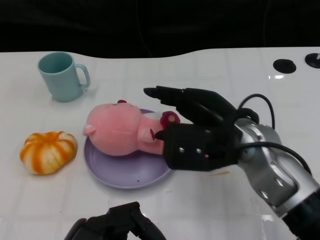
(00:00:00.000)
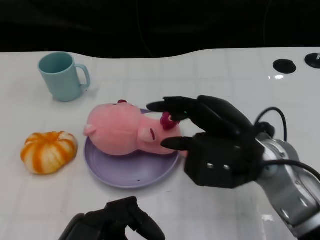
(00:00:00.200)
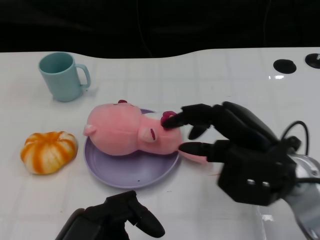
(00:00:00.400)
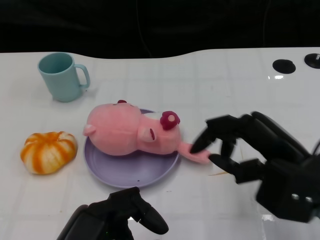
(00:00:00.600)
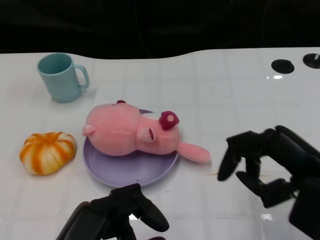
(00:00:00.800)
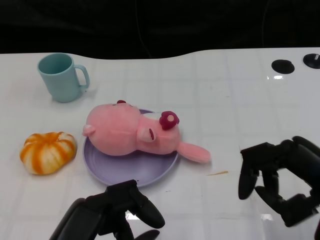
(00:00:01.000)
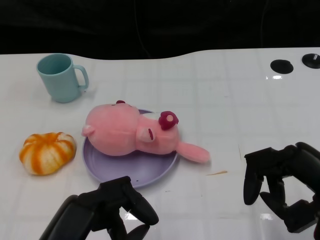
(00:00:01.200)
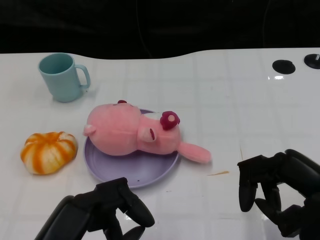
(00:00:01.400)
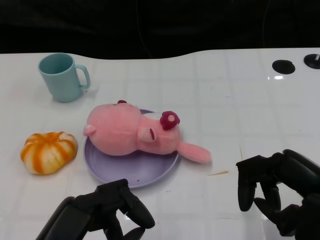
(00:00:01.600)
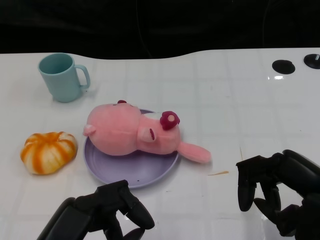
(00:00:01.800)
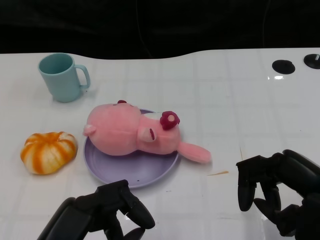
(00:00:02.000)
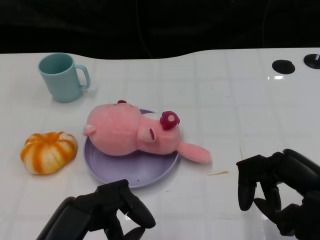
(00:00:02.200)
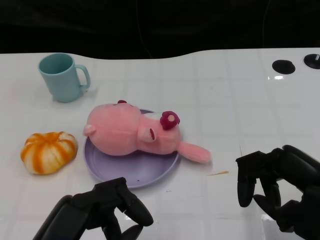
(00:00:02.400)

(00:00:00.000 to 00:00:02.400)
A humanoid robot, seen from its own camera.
Task of the whole recording: Pick up the doll on the other side of the plate and place it into the plate.
00:00:00.000 - 00:00:01.200: The right hand goes roughly 20 cm to the right and backward.
00:00:01.200 - 00:00:02.400: There are only small adjustments of the hands.

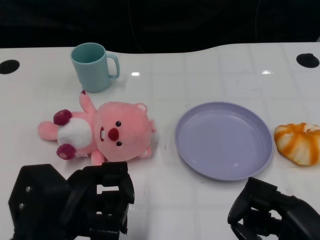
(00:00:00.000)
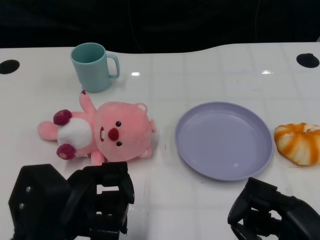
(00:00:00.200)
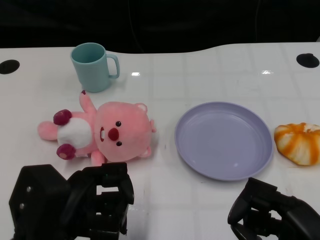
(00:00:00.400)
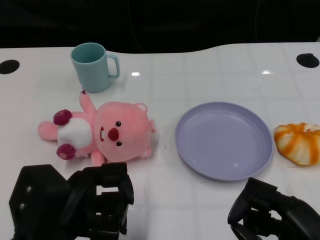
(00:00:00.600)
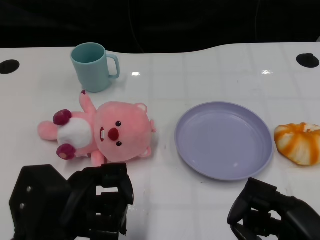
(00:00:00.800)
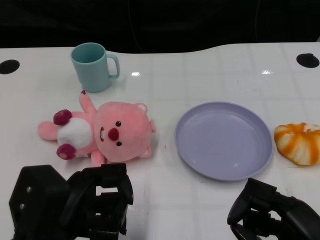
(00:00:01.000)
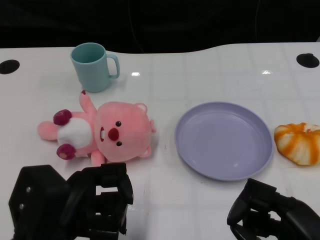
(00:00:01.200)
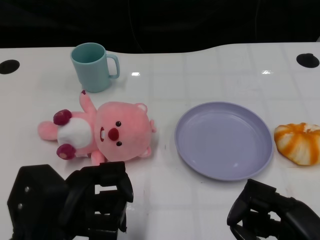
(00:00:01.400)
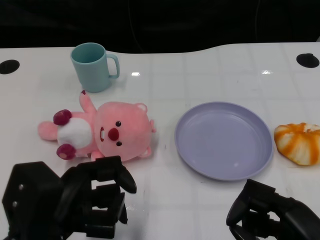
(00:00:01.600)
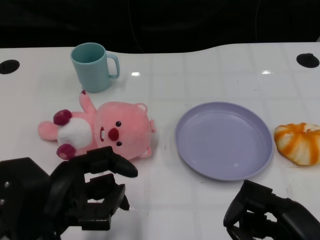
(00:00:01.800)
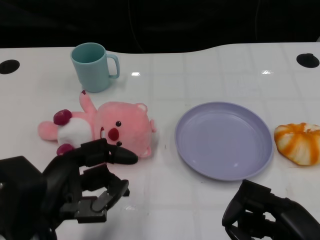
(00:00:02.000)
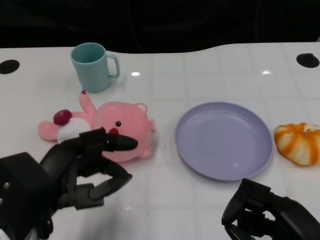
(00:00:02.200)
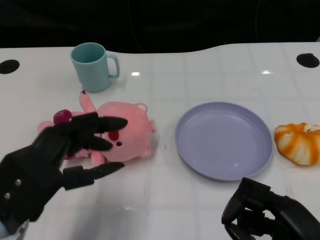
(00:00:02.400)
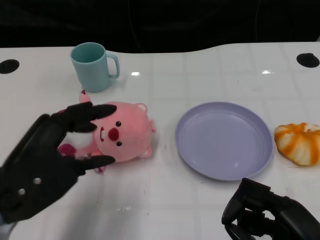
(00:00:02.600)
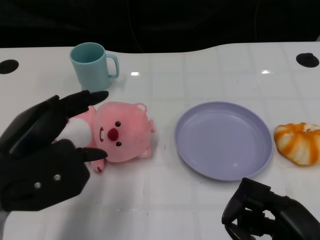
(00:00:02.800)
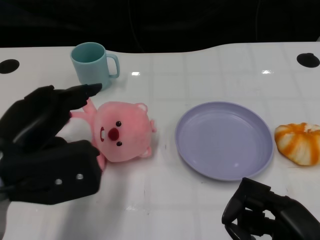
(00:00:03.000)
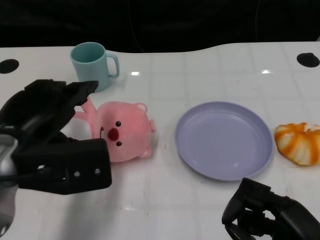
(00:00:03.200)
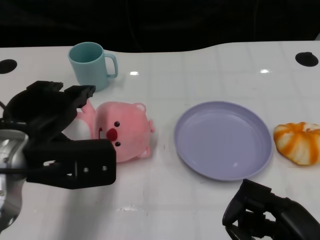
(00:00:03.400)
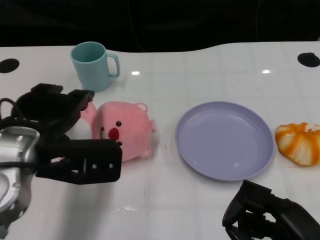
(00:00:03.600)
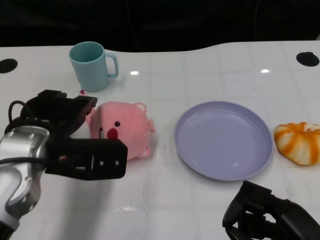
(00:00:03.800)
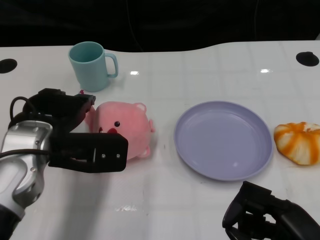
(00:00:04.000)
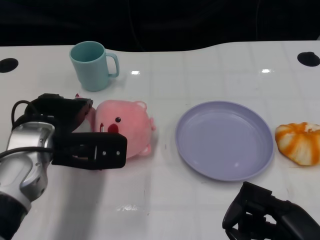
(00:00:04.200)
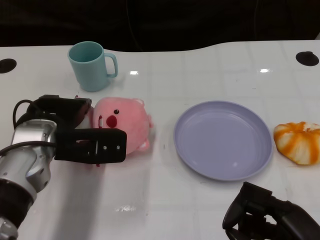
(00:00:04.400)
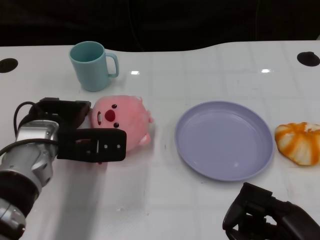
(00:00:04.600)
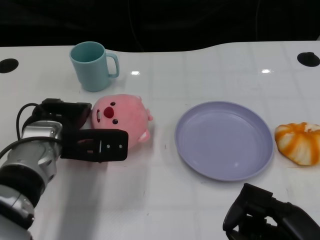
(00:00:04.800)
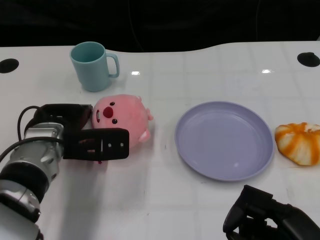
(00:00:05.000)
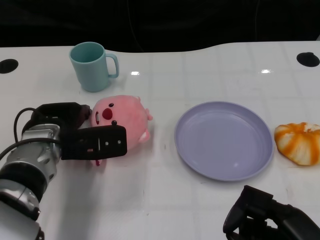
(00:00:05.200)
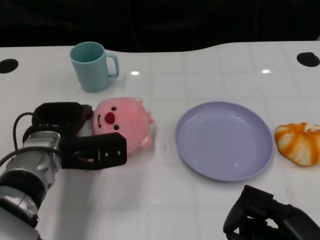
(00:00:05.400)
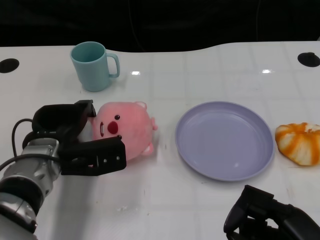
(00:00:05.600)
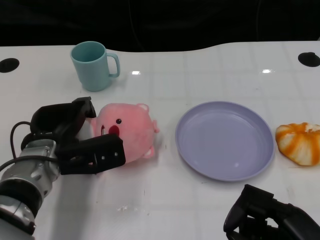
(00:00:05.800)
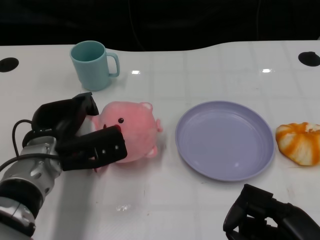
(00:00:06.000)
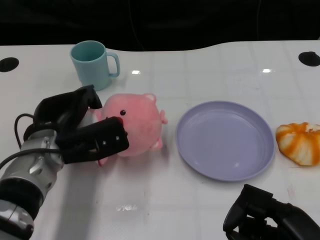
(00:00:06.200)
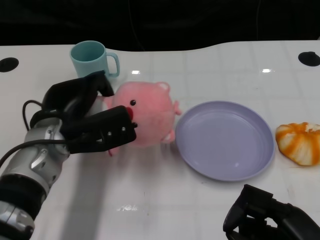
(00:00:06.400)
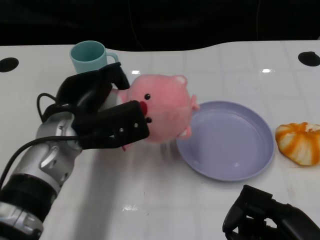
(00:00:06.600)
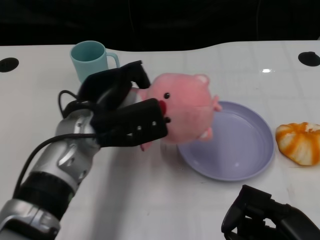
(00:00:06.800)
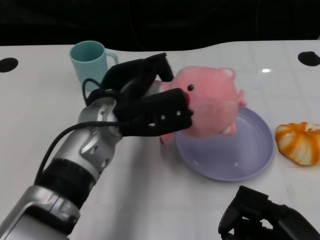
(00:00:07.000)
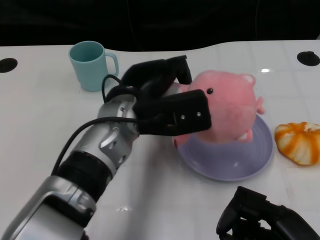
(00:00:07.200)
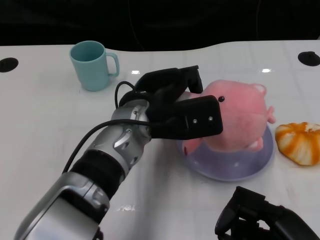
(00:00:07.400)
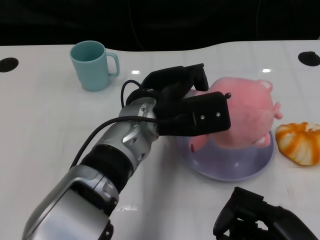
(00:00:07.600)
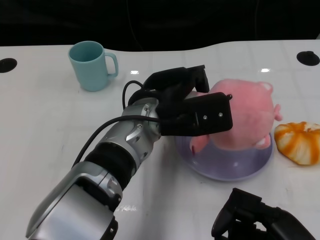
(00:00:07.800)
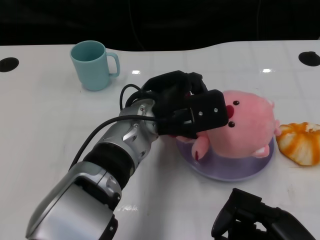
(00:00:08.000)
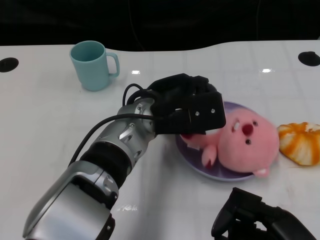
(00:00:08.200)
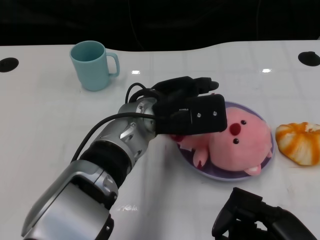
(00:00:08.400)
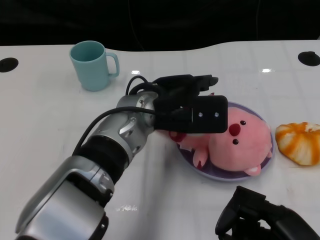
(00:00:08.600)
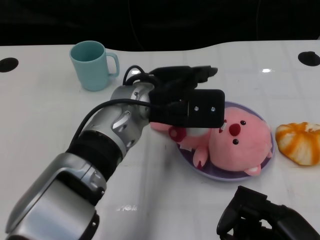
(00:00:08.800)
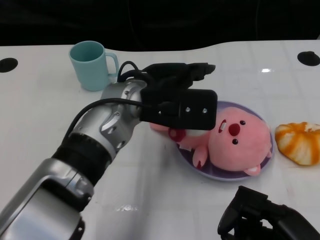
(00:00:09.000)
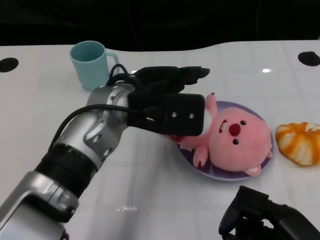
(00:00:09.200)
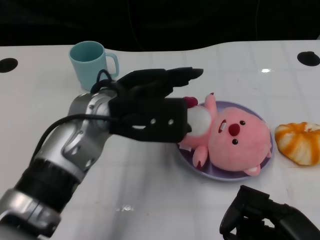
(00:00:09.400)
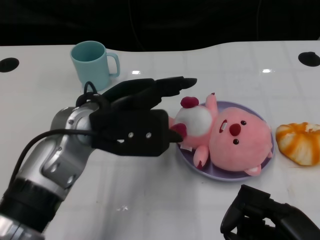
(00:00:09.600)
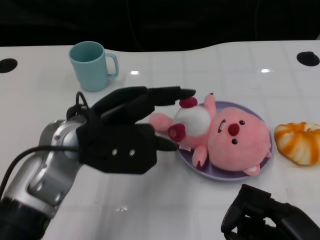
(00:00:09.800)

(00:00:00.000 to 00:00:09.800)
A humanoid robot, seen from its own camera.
Task of the whole recording: Pick up the doll on one side of the plate and place it into the plate.
Step, 00:00:01.400 - 00:00:06.200: Grasp the pink doll with the left gripper.
Step, 00:00:06.400 - 00:00:08.800: Place the pink doll into the plate with the left gripper.
00:00:01.400 - 00:00:02.800: The left hand goes about 5 cm upward.
00:00:02.800 - 00:00:04.200: The left hand moves forward, roughly 10 cm.
00:00:04.200 - 00:00:05.600: The left hand shifts approximately 5 cm downward.
00:00:05.600 - 00:00:07.000: The left hand moves to the right and upward, some 10 cm.
00:00:07.000 - 00:00:08.400: The left hand moves to the right, approximately 5 cm.
00:00:08.400 - 00:00:09.800: The left hand heads to the left, covering some 10 cm.

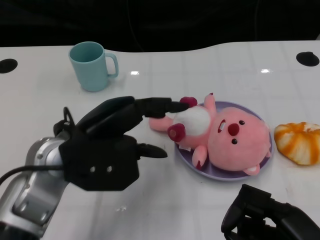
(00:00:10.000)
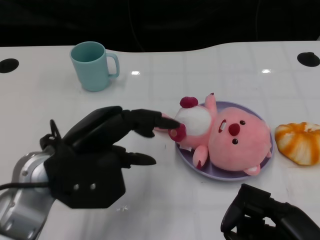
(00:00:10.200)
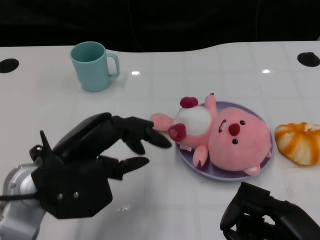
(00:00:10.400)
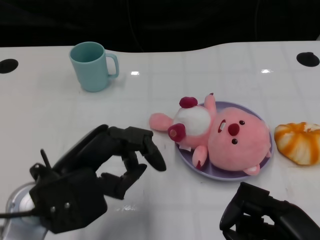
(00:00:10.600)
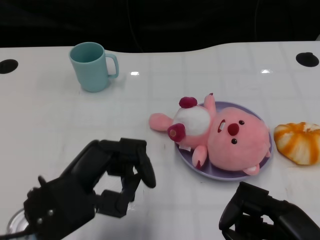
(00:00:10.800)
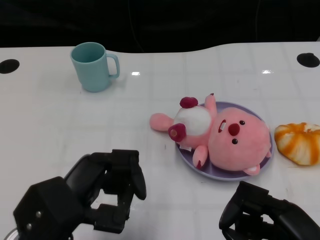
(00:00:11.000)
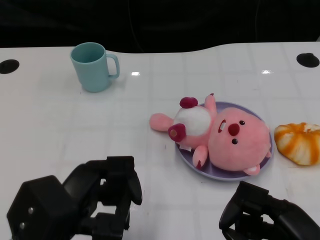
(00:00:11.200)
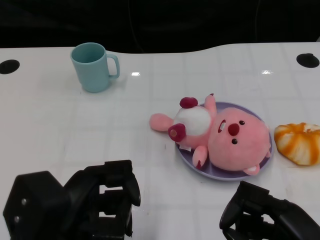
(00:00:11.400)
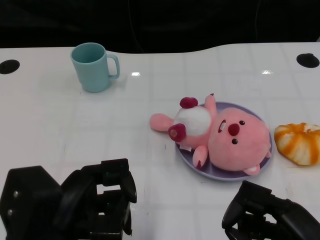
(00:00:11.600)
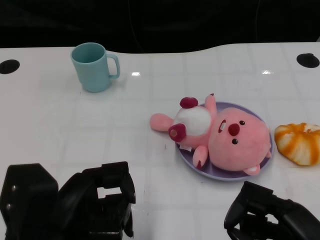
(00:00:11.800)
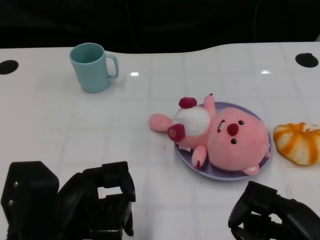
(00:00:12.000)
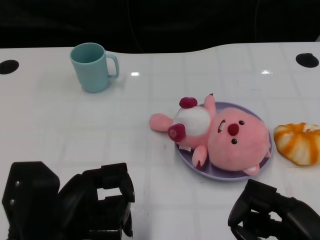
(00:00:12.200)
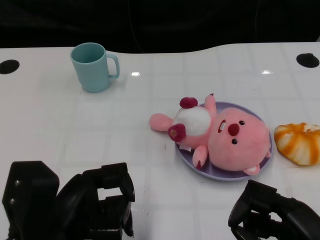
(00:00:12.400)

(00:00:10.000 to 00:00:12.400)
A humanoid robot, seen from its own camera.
Task of the whole recording: Pick up the doll on one side of the plate and place it into the plate.
00:00:10.000 - 00:00:11.200: The left hand is displaced backward by some 10 cm.

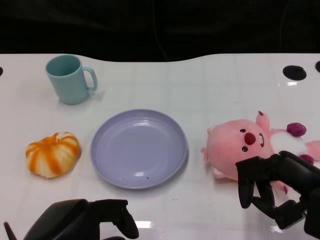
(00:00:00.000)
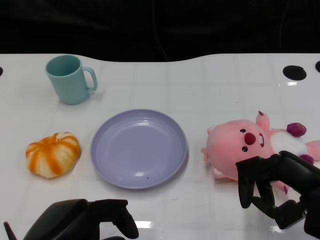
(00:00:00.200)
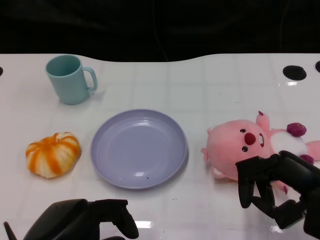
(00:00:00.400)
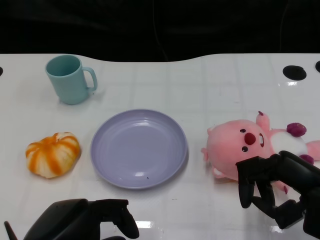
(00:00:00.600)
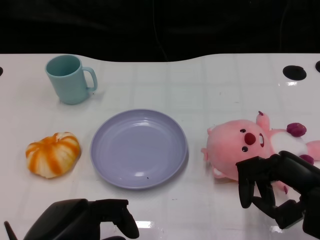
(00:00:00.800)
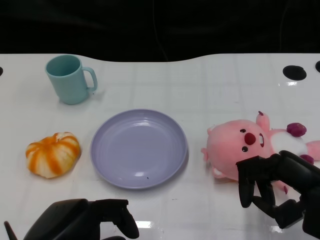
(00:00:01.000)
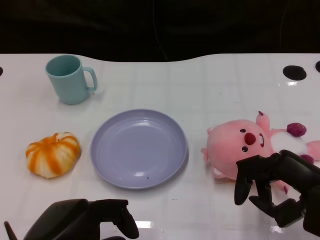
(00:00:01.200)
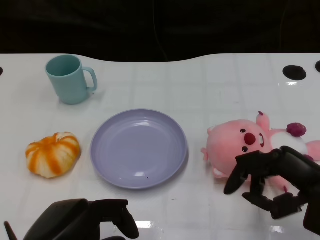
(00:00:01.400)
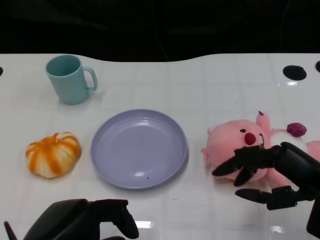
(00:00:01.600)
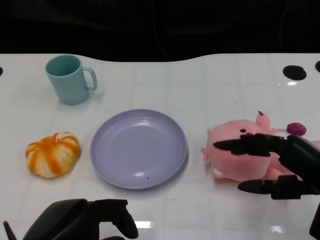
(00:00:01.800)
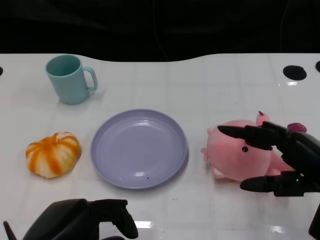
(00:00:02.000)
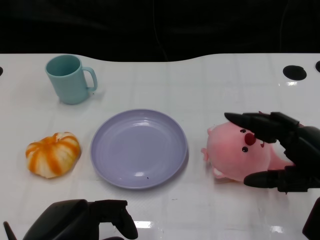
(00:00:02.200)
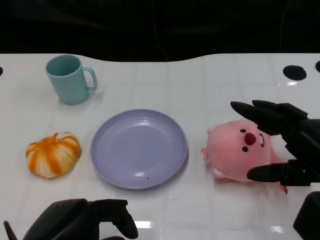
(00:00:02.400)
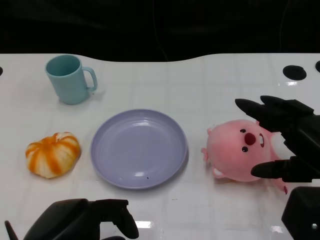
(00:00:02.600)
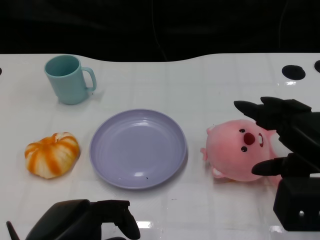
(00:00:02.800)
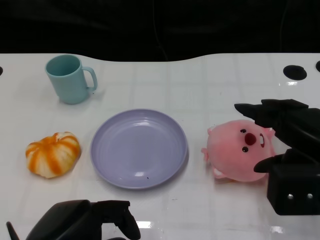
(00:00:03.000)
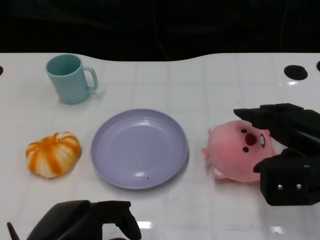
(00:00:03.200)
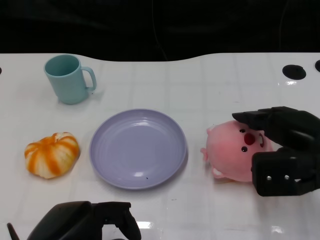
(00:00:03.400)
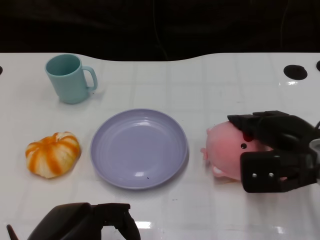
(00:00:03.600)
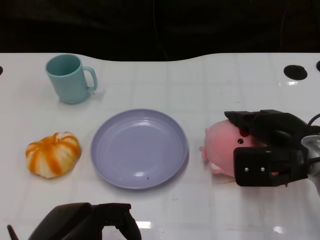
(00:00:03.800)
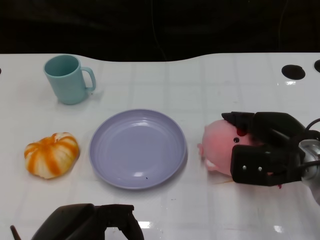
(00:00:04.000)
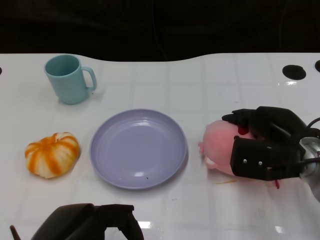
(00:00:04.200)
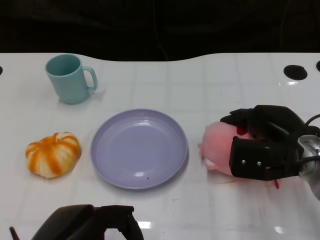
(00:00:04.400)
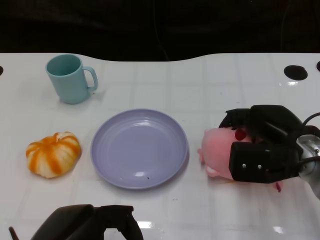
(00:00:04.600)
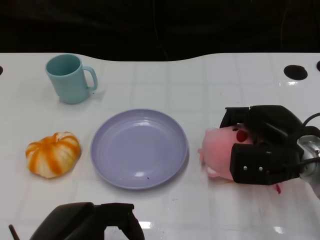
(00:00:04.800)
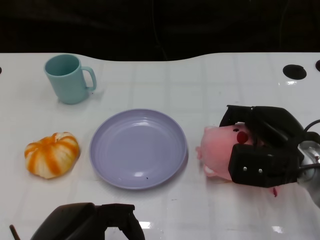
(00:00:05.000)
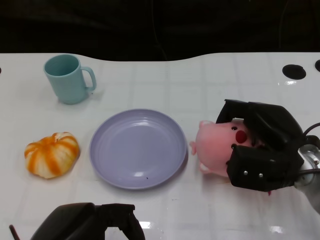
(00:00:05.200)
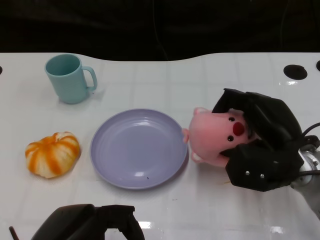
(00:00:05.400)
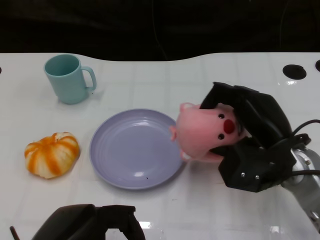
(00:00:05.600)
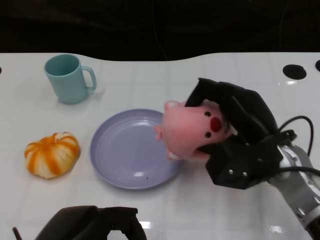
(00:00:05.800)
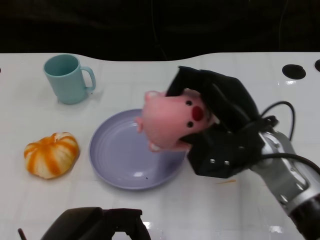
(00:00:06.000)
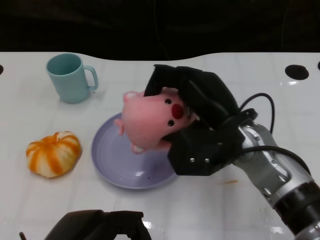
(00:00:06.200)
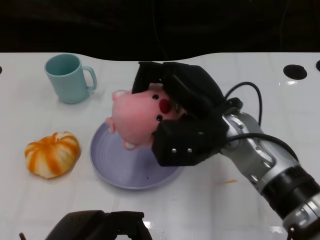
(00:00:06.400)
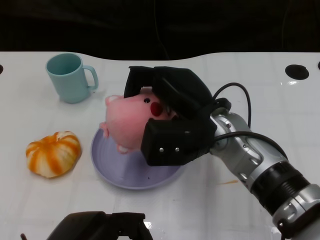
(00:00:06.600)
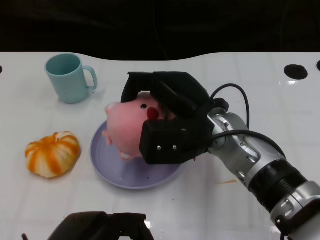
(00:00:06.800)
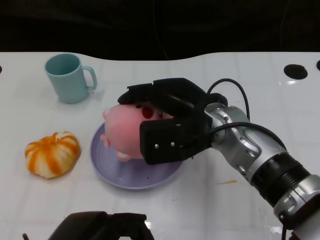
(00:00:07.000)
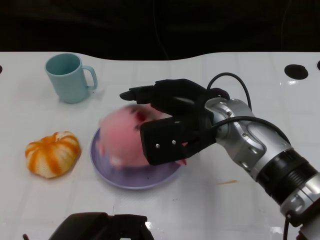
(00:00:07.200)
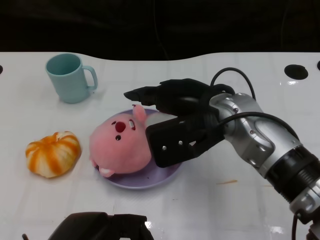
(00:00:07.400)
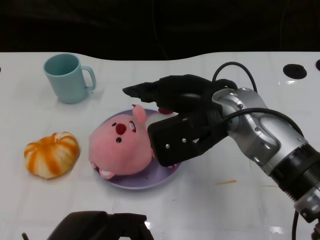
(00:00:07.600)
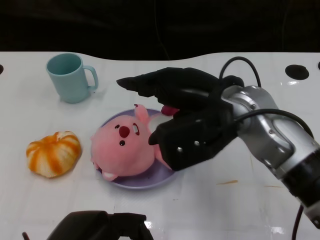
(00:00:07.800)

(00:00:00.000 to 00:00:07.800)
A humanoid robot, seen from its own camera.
Task of the whole recording: Pick up the doll on the other side of the plate and place it into the plate.
Step, 00:00:01.200 - 00:00:05.600: Grasp the pink doll with the right gripper.
00:00:01.600 - 00:00:03.200: The right hand ends up roughly 5 cm from where it was.
00:00:03.200 - 00:00:04.600: The right hand travels downward and forward by roughly 5 cm.
00:00:04.600 - 00:00:06.200: The right hand shifts about 10 cm to the left.
00:00:06.200 - 00:00:07.800: The right hand heads upward, covering some 5 cm.
